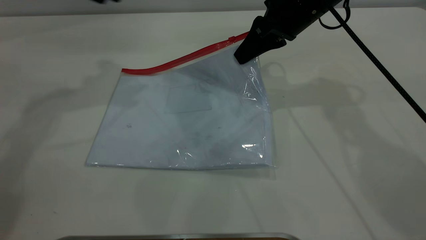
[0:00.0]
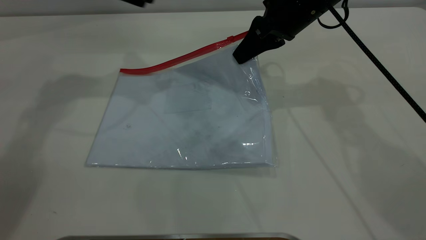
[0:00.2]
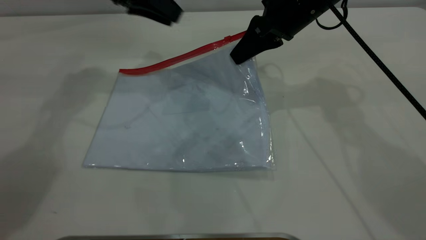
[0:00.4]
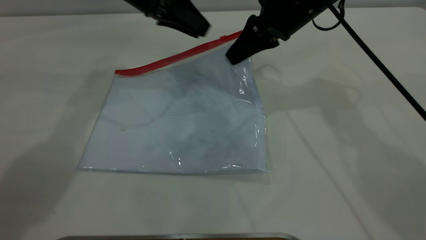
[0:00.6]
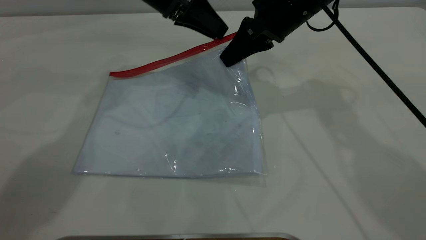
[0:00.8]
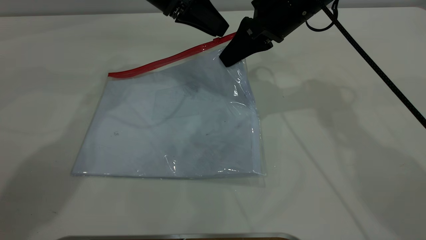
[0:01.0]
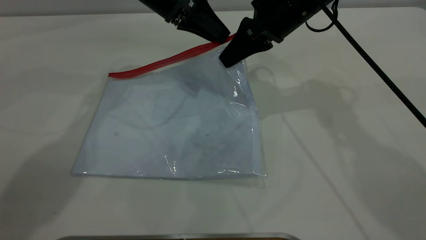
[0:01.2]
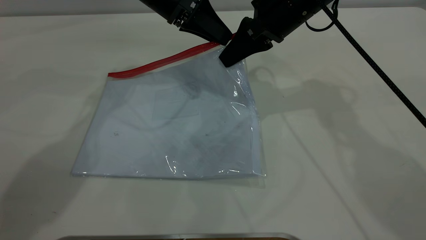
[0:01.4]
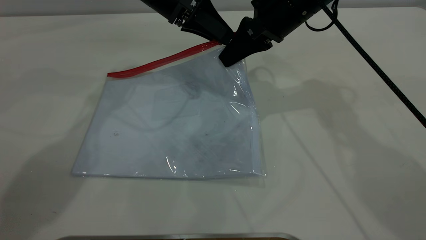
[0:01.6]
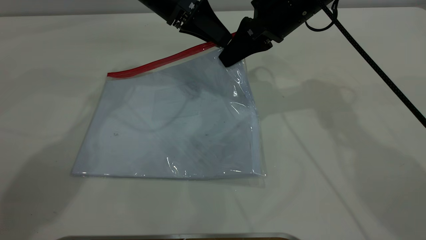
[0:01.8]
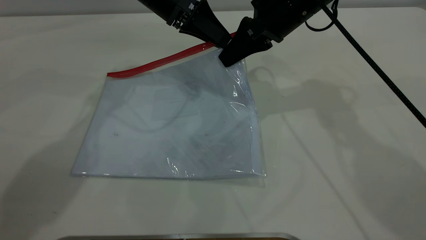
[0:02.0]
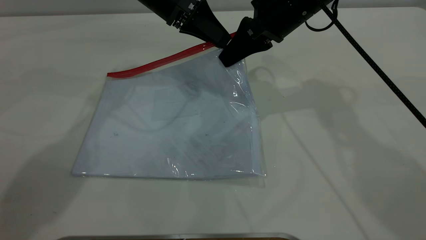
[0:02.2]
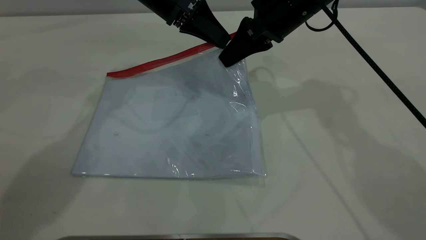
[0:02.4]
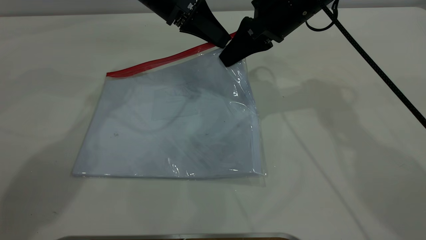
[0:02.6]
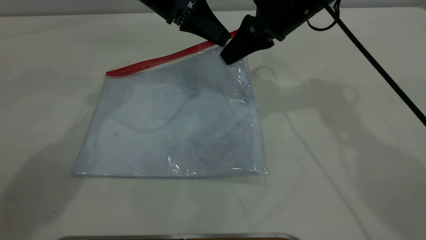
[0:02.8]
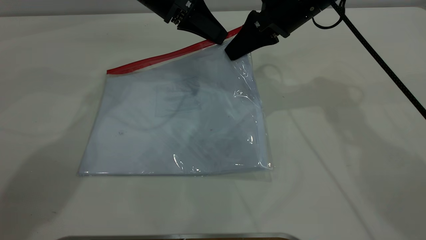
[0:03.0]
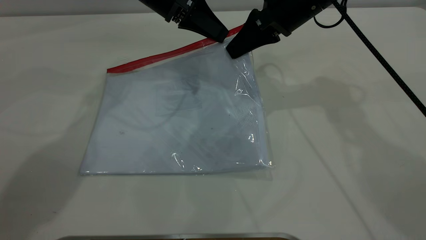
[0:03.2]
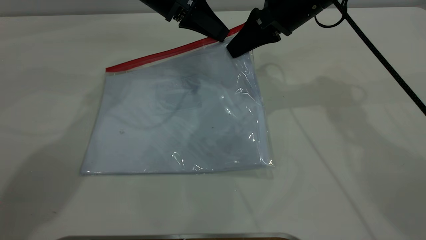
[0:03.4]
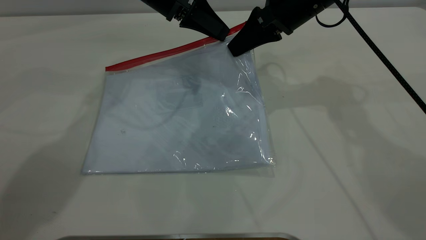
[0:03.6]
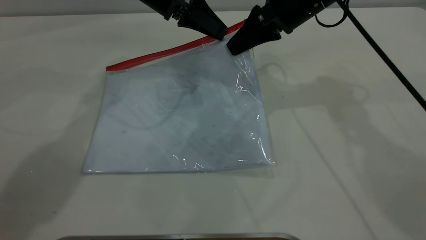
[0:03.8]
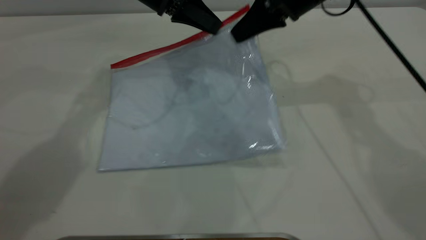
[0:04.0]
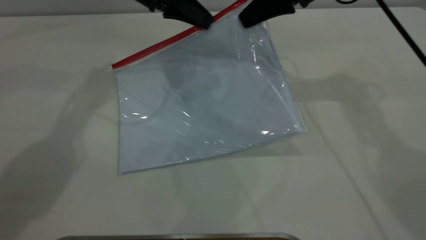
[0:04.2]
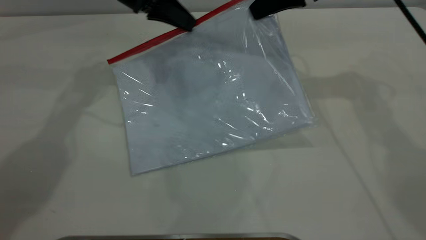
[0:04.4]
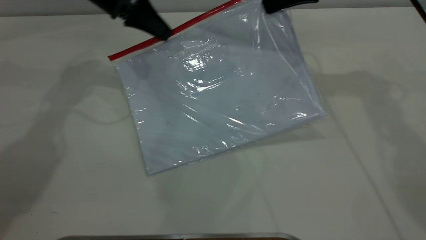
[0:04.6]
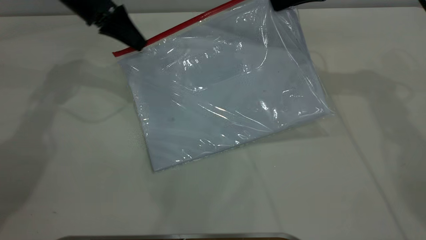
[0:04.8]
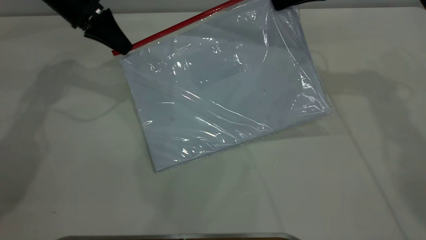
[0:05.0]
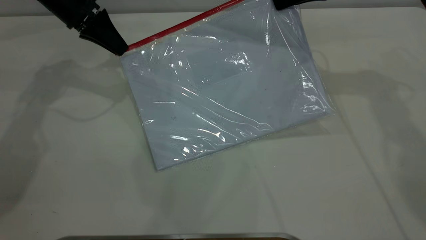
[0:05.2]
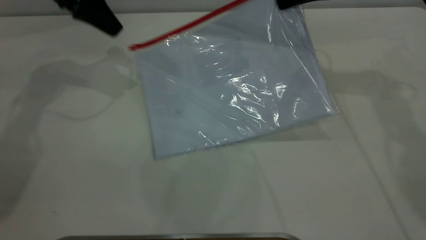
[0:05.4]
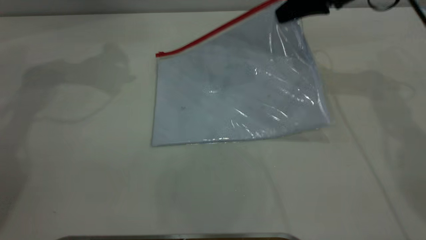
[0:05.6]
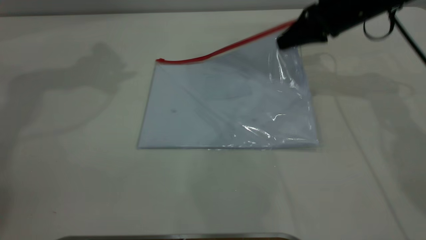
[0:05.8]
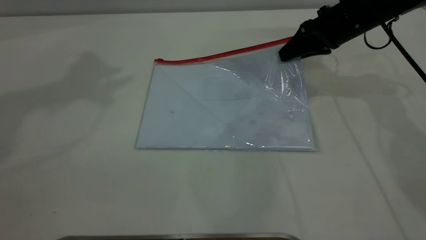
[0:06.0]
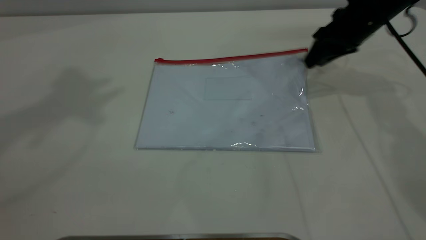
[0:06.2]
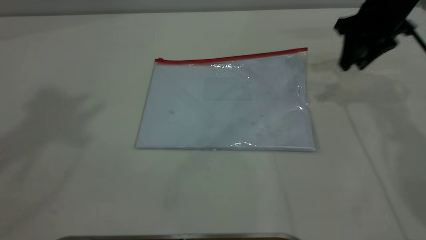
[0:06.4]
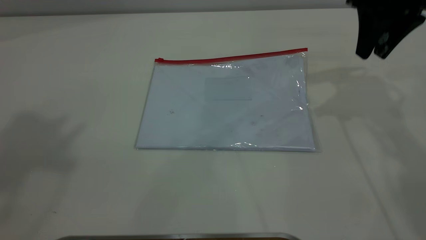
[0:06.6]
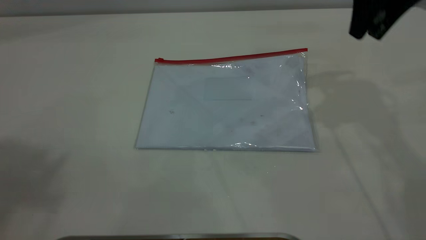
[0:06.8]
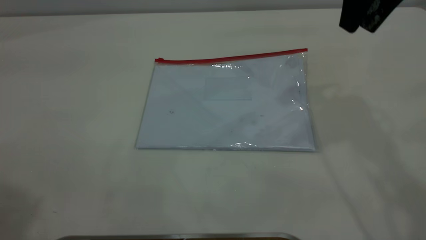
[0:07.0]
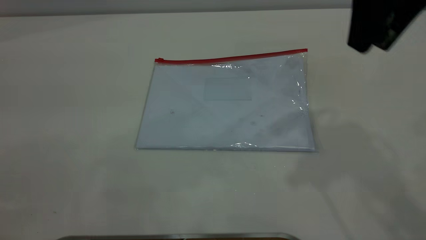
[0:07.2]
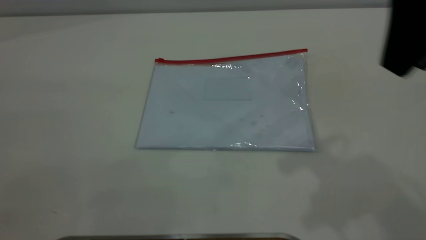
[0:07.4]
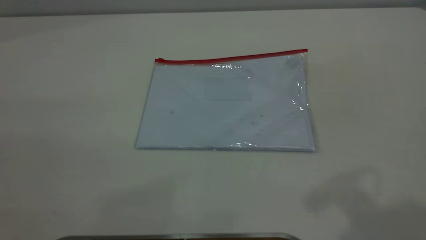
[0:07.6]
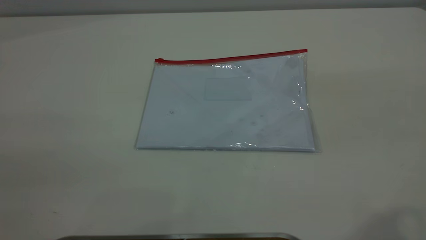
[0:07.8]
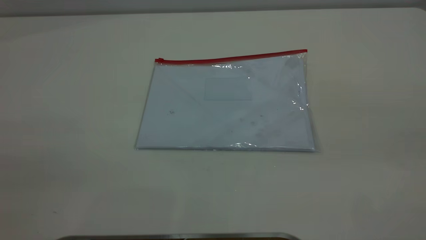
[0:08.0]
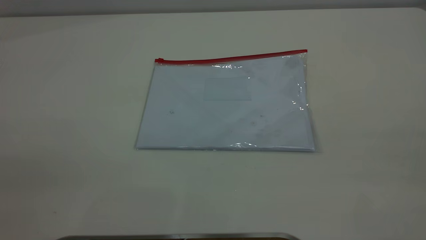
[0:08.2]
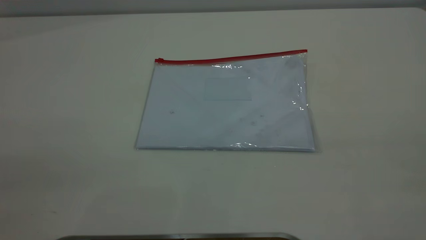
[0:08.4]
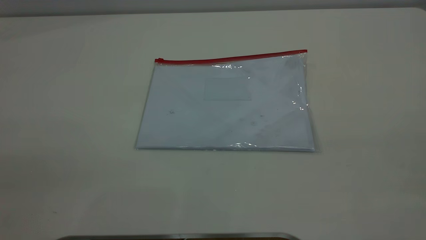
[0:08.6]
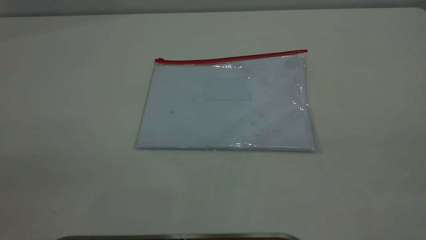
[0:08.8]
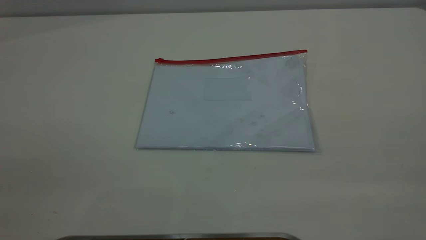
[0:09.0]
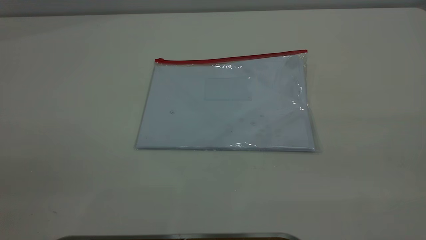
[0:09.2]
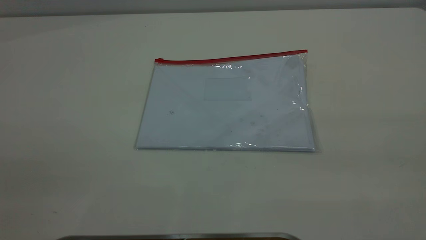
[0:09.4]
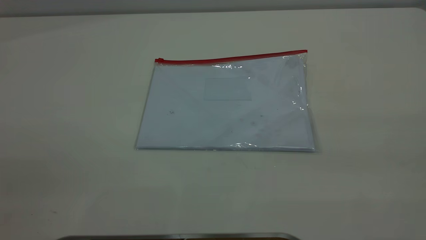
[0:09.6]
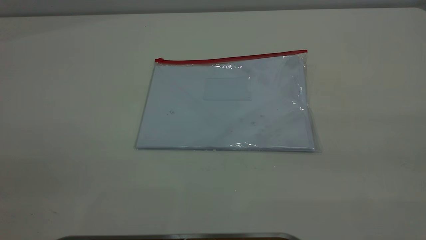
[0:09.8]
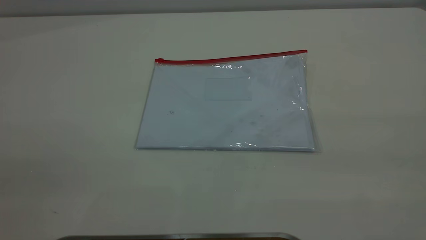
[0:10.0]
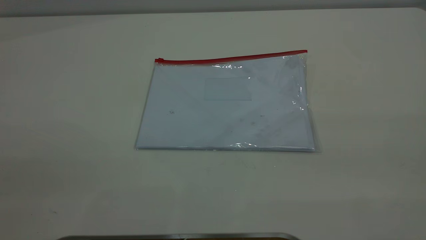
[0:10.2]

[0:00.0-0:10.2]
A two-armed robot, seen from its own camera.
Step, 0:00.0 to 0:05.4: Pulling up the zipper on the transparent plastic bag with the left gripper to close it.
Step, 0:05.6 to 0:07.0: Place the transparent plastic bag.
0:00.0 to 0:01.4: The left gripper heads to the right and downward, covering approximately 15 cm.
0:01.4 to 0:03.0: The left gripper closes.
0:03.0 to 0:04.4: The left gripper shifts roughly 5 cm to the left; the right gripper goes approximately 5 cm to the right.
0:04.4 to 0:05.8: The right gripper moves downward, about 10 cm. Meanwhile the left gripper travels upward and to the left by about 25 cm, and opens its fingers.
0:05.8 to 0:07.2: The left gripper heads backward, covering approximately 35 cm; the right gripper goes roughly 25 cm upward and backward, and opens up.
0:07.2 to 0:08.8: The right gripper heads backward and to the right, covering roughly 30 cm.
